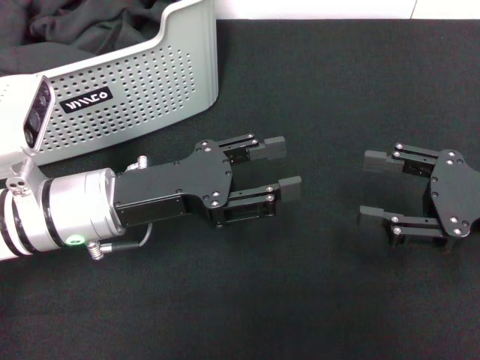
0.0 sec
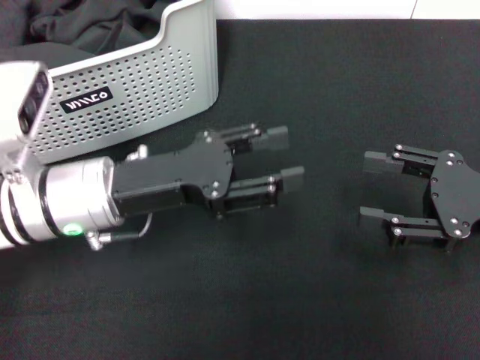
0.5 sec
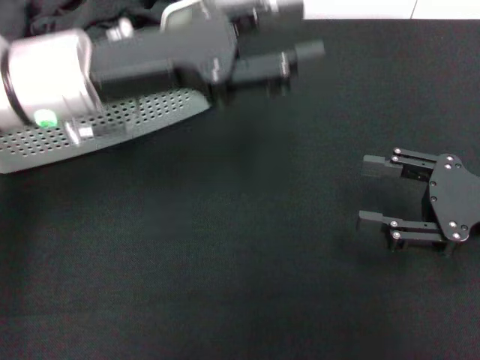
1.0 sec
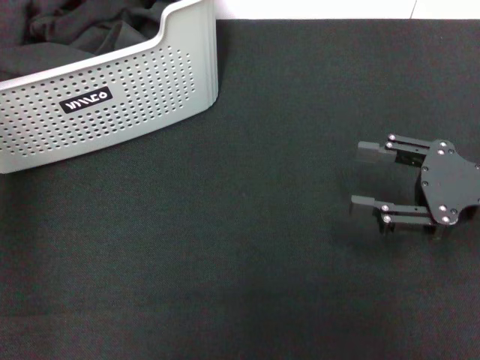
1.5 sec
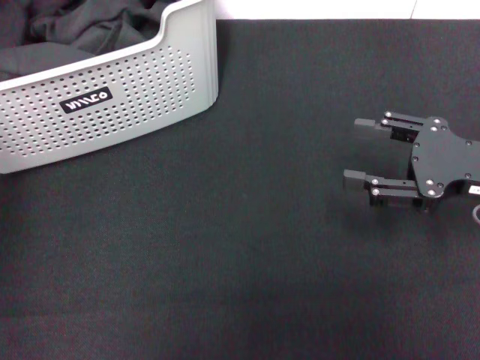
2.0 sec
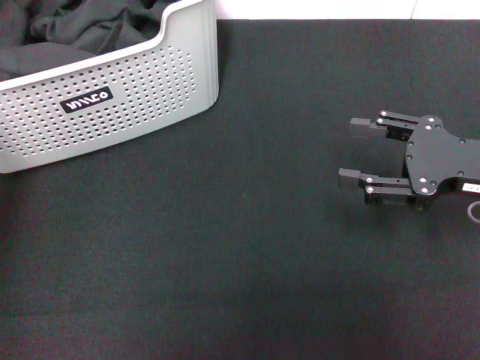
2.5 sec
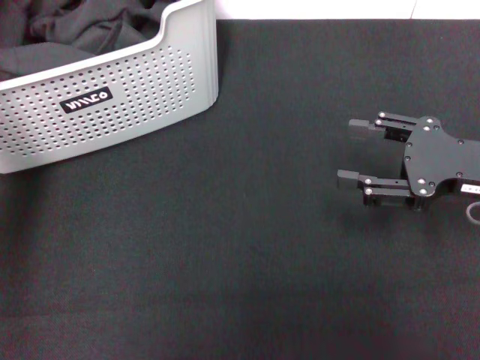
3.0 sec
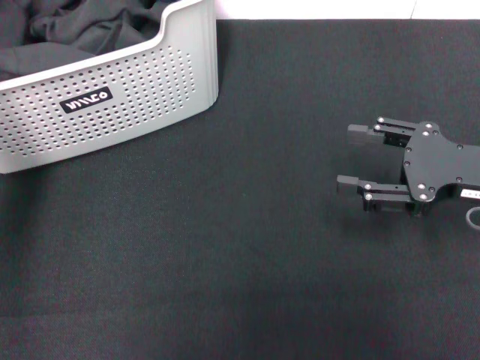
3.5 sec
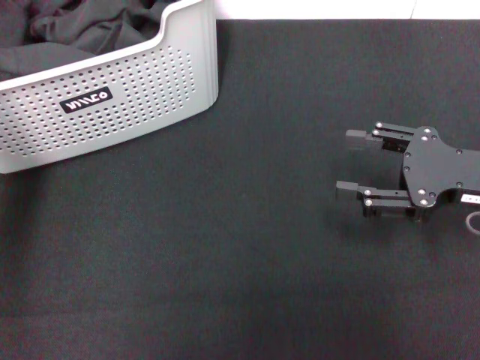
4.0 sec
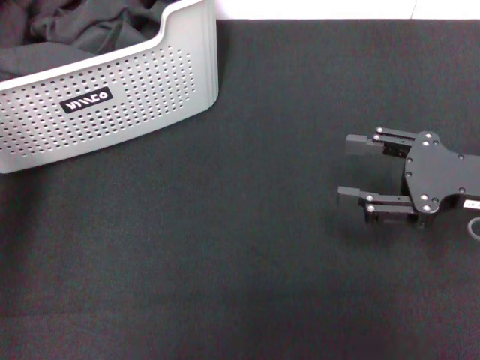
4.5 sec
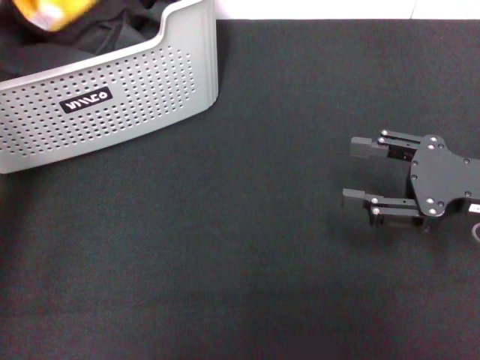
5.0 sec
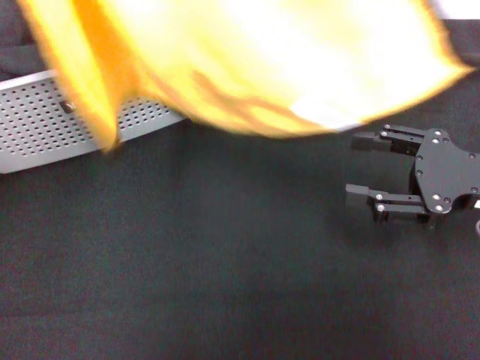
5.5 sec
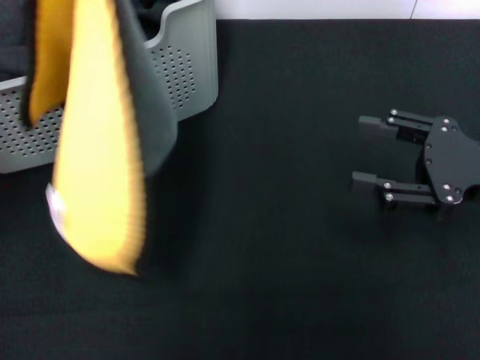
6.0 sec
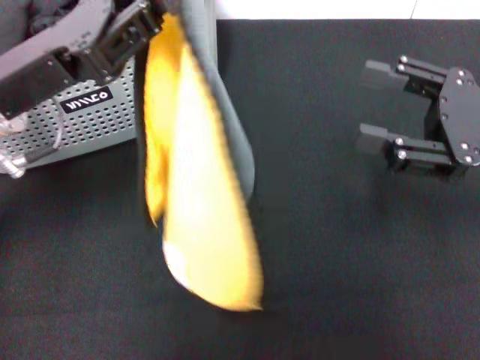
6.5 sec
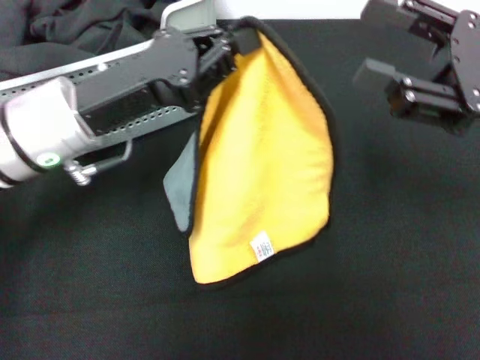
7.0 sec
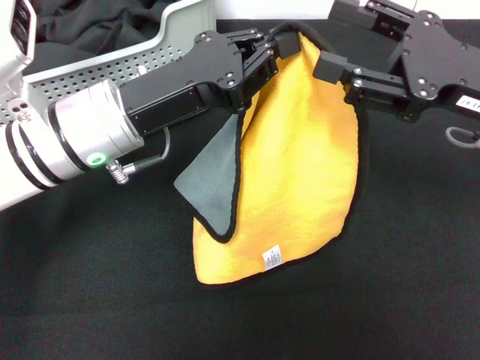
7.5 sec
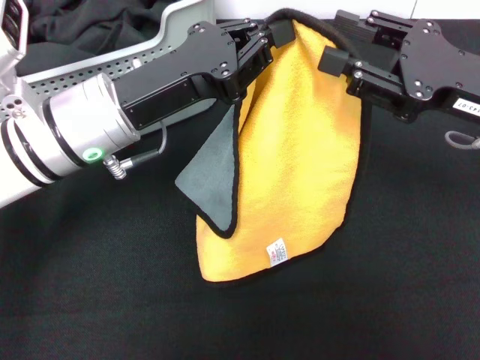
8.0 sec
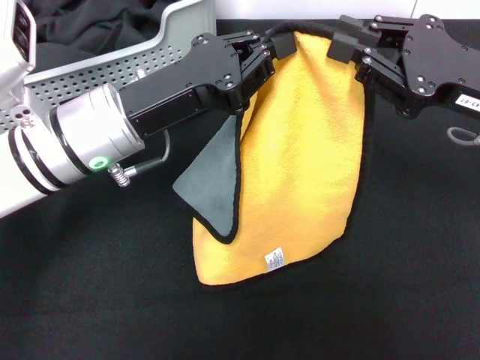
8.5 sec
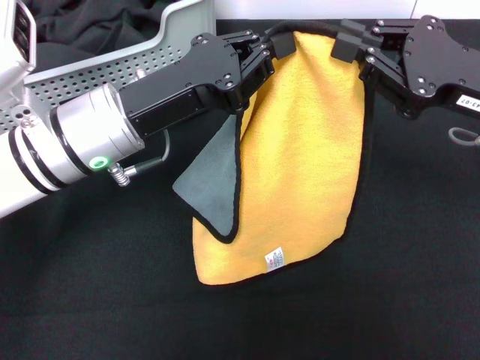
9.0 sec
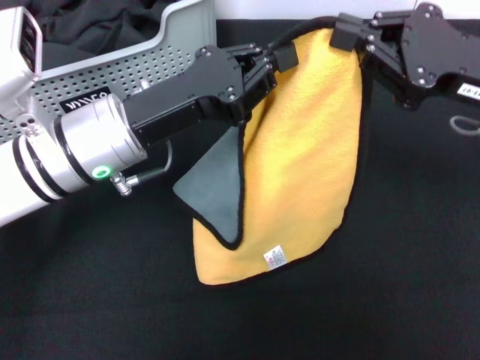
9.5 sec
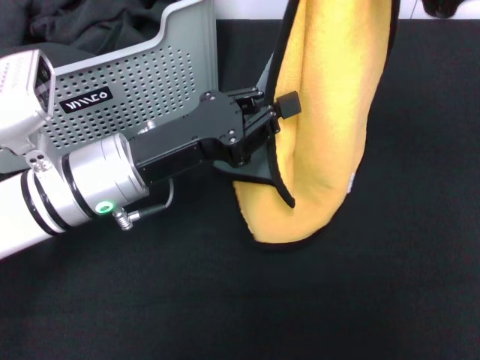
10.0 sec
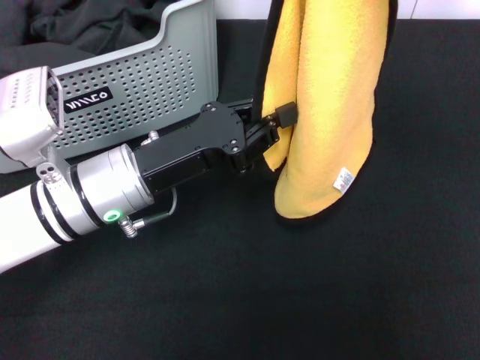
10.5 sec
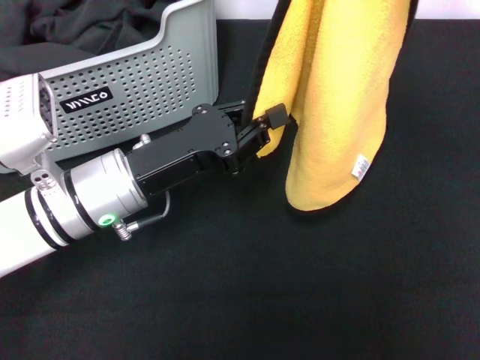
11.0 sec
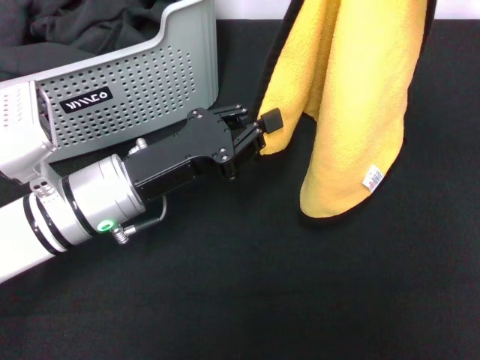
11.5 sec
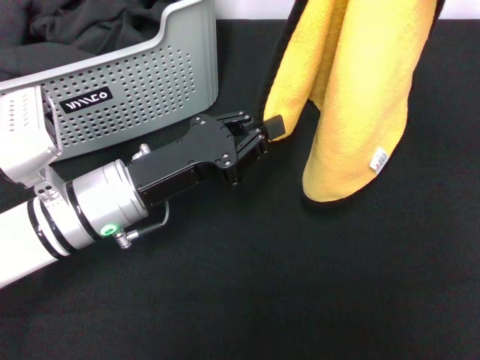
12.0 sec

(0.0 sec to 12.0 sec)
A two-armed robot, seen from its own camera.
Task of the whole recording: pick up the towel from the storage box and lay it flat on the black tablecloth.
Step, 0.0 sec - 4.0 sec: Pick up a towel with the left gripper.
Step, 4.5 sec - 9.0 sec: Spread the towel flat with the left gripper.
0.0 sec - 2.0 sec: The left gripper is displaced upward, forward and to the left by roughly 25 cm.
2.0 sec - 4.0 sec: The left gripper goes approximately 5 cm downward, and closes its fingers.
4.0 sec - 6.0 sec: The left gripper moves backward, about 10 cm, and closes up.
6.0 sec - 8.0 sec: The right gripper moves roughly 5 cm, while the left gripper is displaced to the right and downward by about 15 cm.
8.0 sec - 10.0 sec: The right gripper moves upward, roughly 10 cm, and closes.

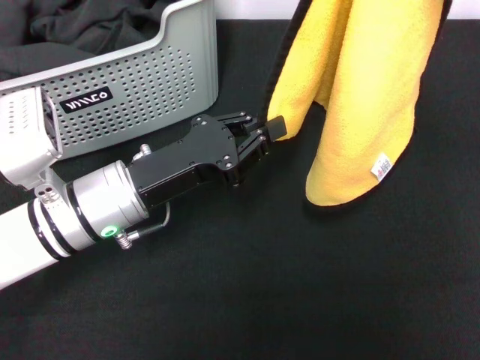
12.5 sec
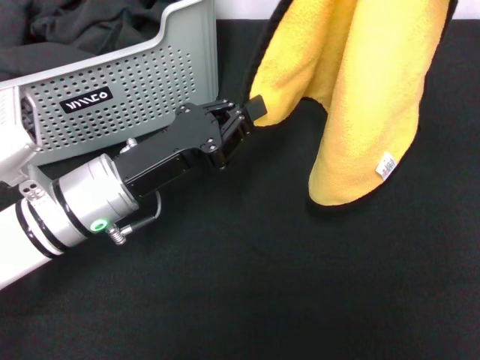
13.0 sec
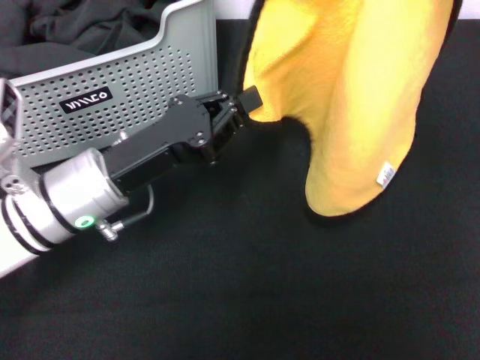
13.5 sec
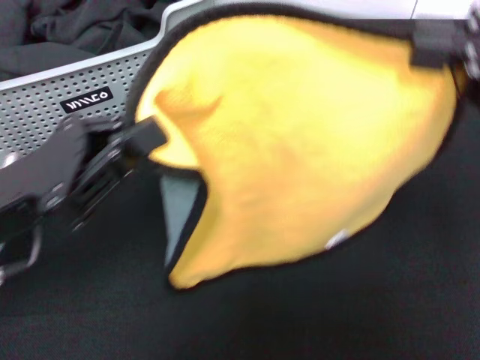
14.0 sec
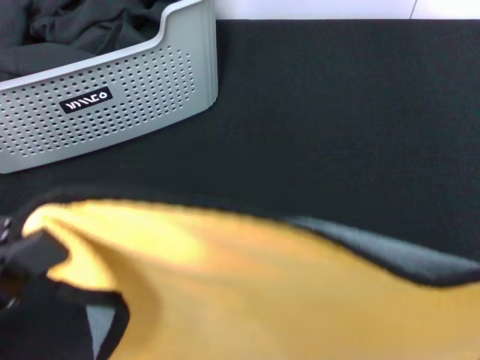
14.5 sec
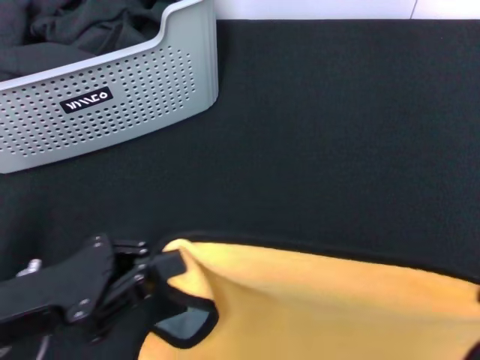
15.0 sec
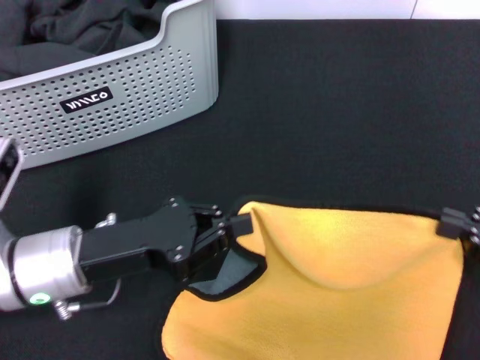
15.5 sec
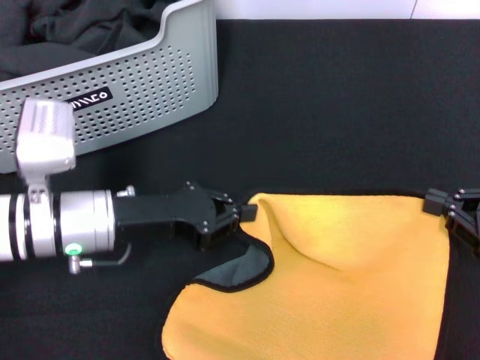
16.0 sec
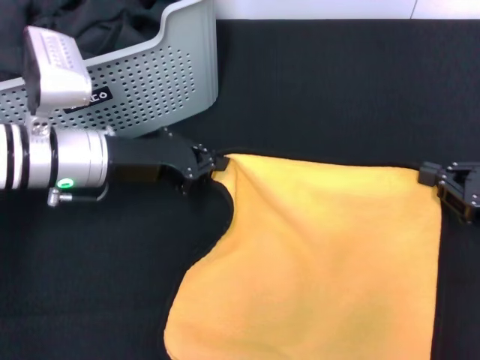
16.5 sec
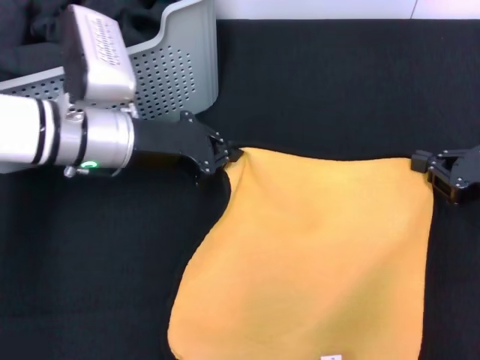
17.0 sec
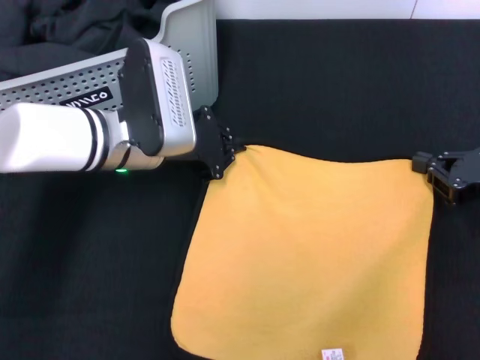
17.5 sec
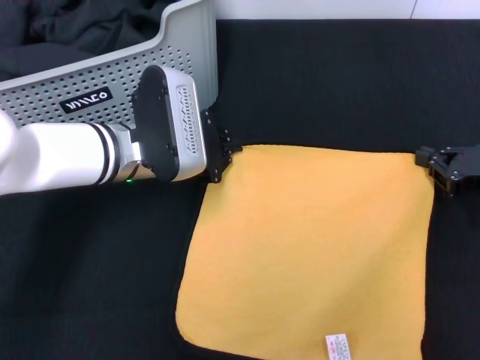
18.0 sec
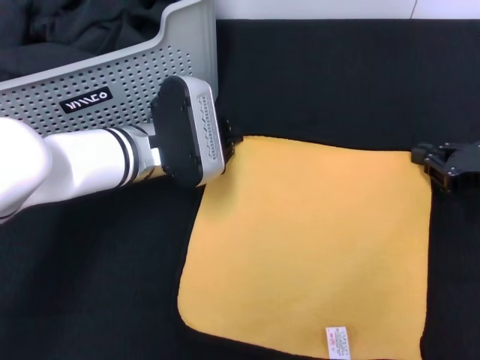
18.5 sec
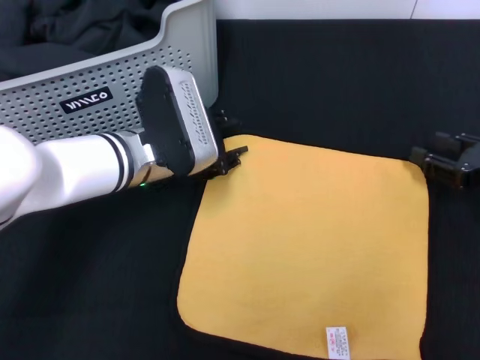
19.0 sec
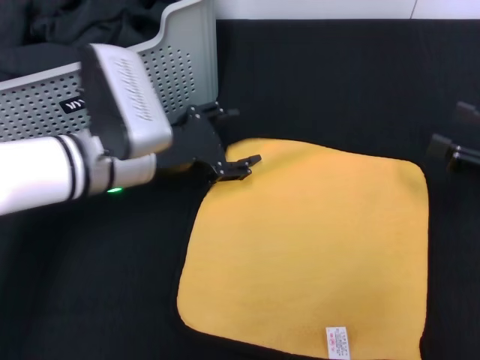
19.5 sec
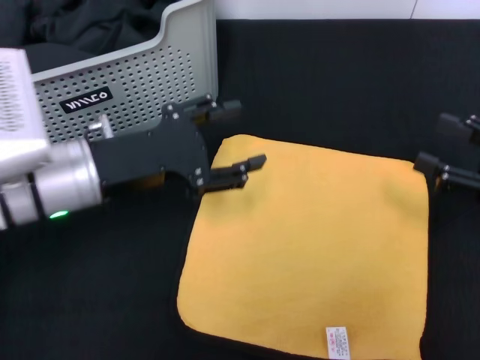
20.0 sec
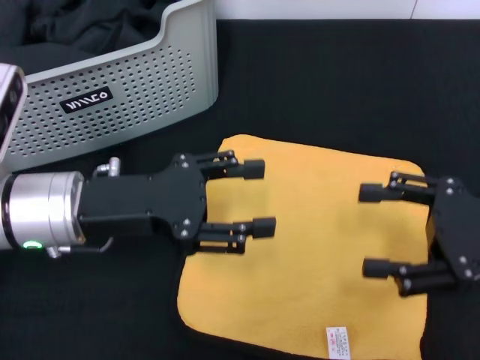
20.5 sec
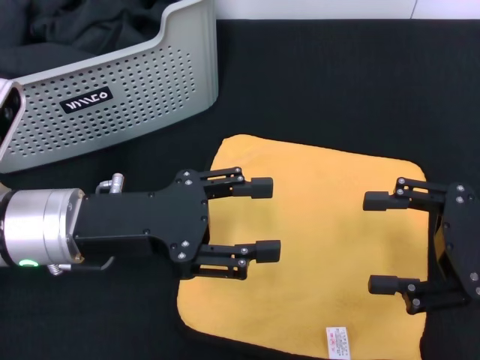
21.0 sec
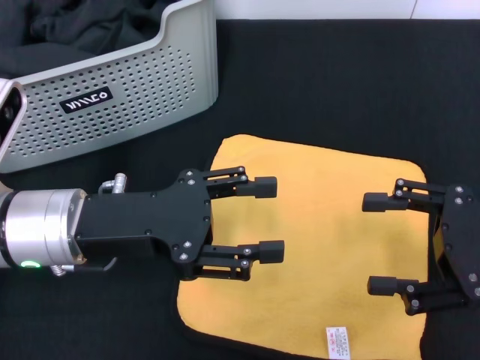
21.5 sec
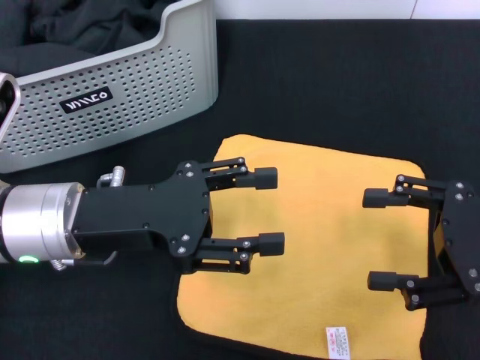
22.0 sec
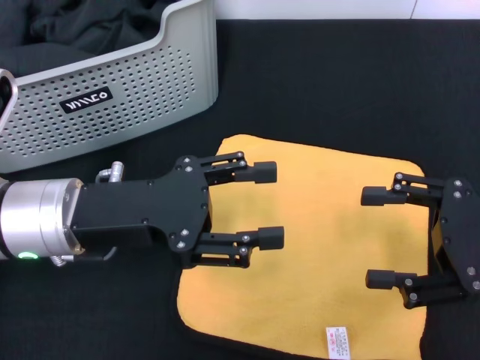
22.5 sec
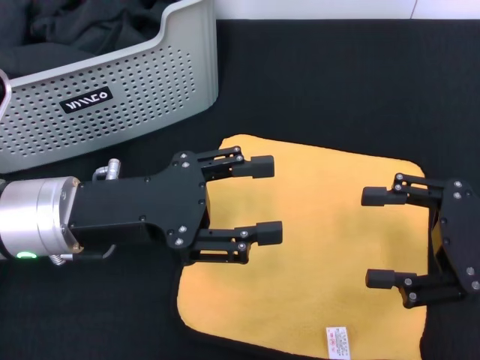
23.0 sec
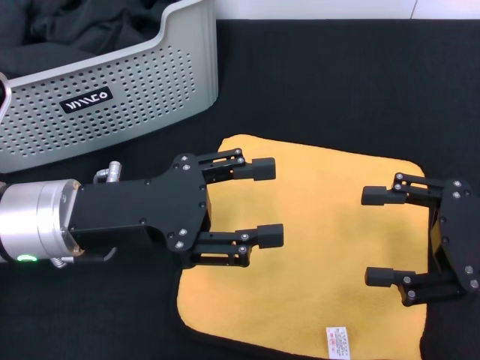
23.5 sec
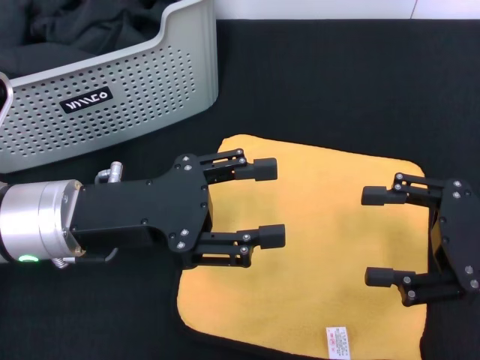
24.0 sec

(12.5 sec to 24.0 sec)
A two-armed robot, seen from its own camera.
Task of the whole recording: pick up the towel from the storage box and lay it flat on the black tablecloth.
Step, 12.5 sec - 18.5 sec: Spread the towel flat with the right gripper.
12.5 sec - 14.5 sec: The left gripper travels backward, to the left and upward by about 20 cm. The right gripper shifts roughly 20 cm backward.
14.5 sec - 16.5 sec: The right gripper heads downward and forward, covering about 25 cm. Meanwhile the left gripper moves forward, roughly 20 cm.
16.5 sec - 18.5 sec: The left gripper shifts some 5 cm to the right.
18.5 sec - 20.0 sec: The left gripper goes approximately 10 cm backward and to the left, and opens, while the right gripper shifts by some 5 cm, and opens.
20.0 sec - 22.0 sec: The right gripper goes about 5 cm to the left.
22.0 sec - 24.0 sec: Neither gripper changes place.

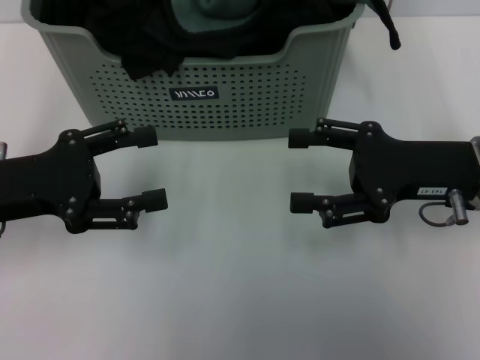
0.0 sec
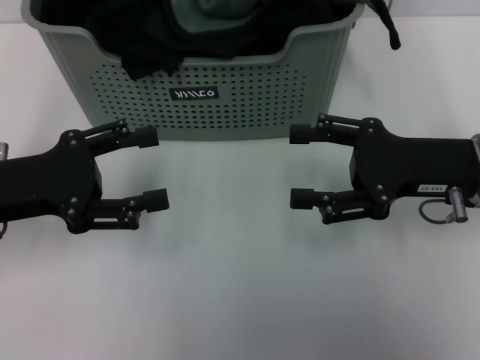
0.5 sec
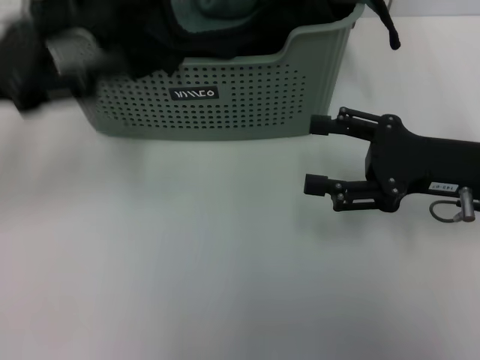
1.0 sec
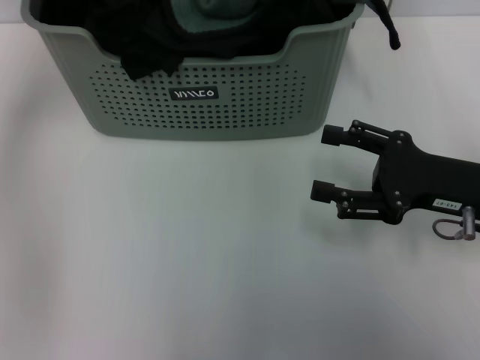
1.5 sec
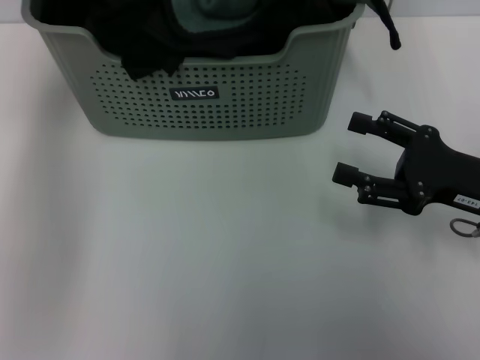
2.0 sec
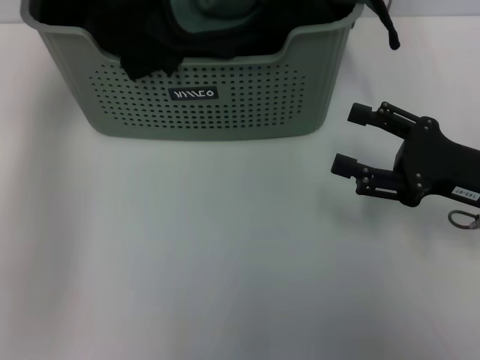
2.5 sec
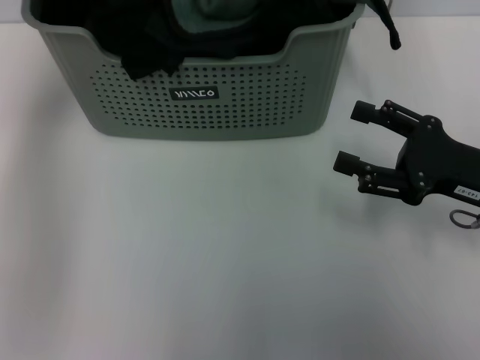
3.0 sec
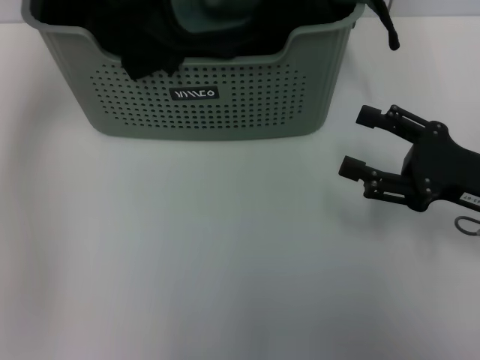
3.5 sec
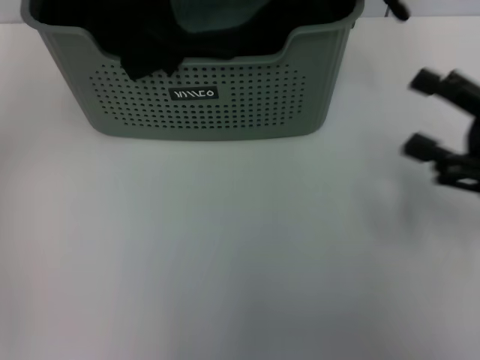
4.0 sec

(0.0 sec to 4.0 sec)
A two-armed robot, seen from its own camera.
Task of the whole recording: pick up the towel from the storage box and lay it flat on the table.
Step, 0.0 sec - 3.5 sec: Pick up a towel with the left gripper.
0.0 sec - 2.0 sec: The right gripper changes place by about 5 cm. The left gripper is displaced forward, upward and to the right by some 25 cm.
2.0 sec - 4.0 sec: The left gripper heads backward, covering roughly 10 cm, and closes up.
